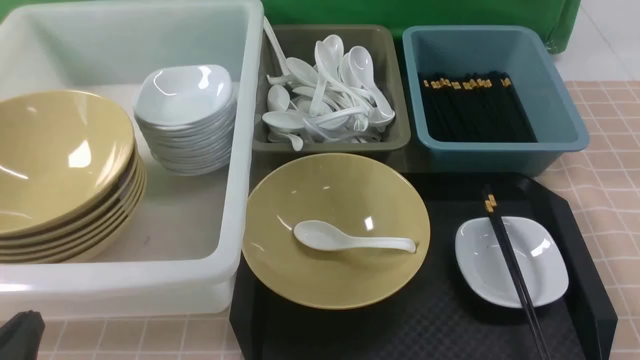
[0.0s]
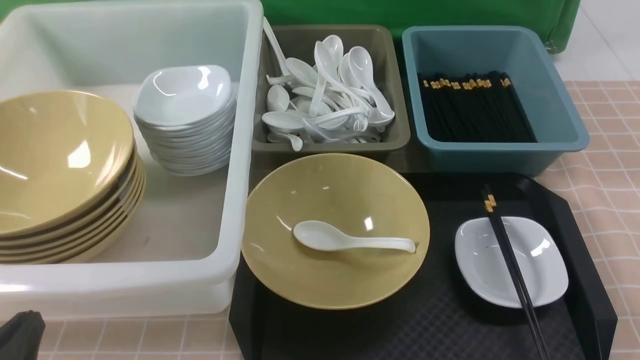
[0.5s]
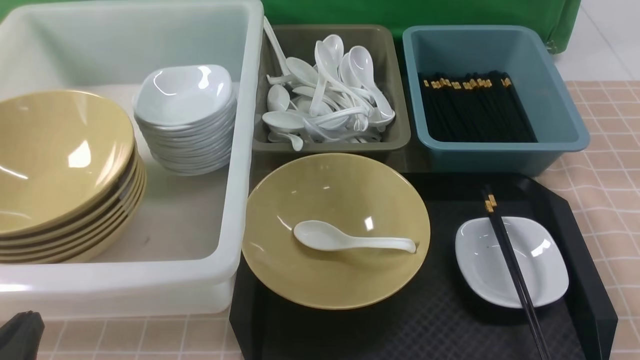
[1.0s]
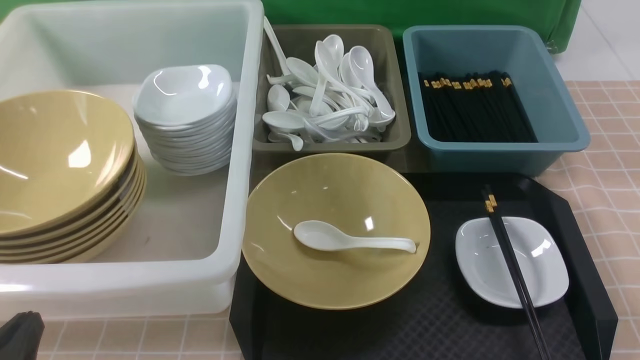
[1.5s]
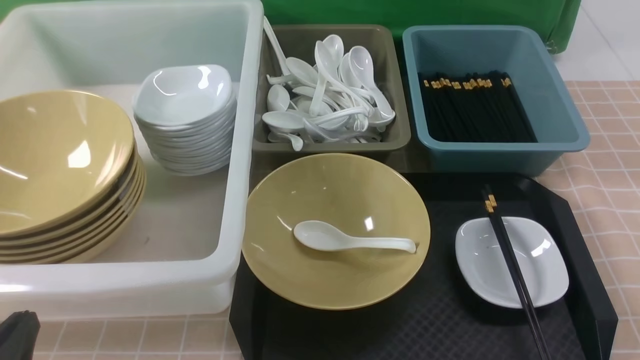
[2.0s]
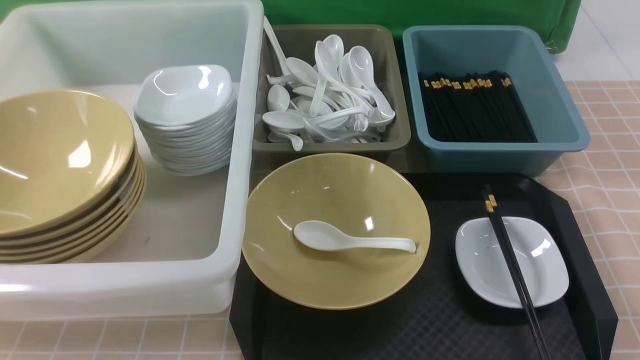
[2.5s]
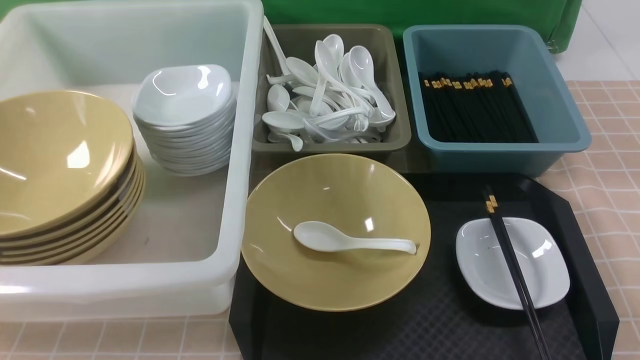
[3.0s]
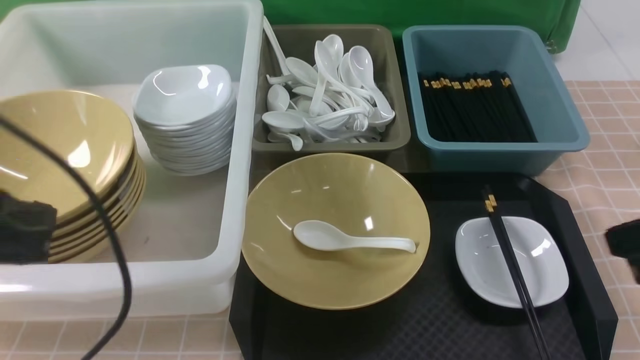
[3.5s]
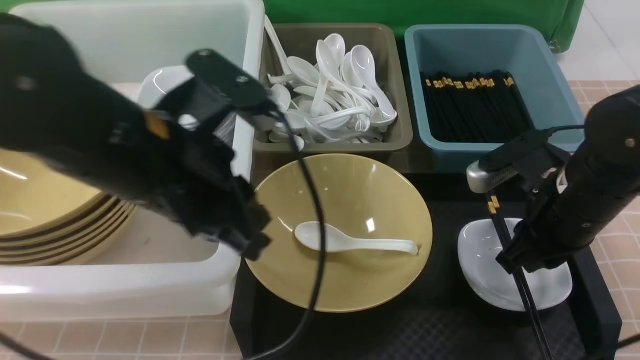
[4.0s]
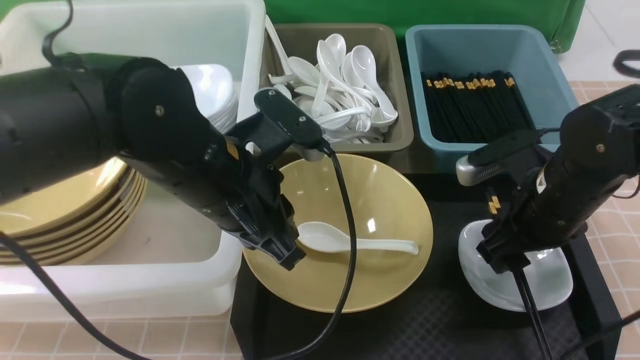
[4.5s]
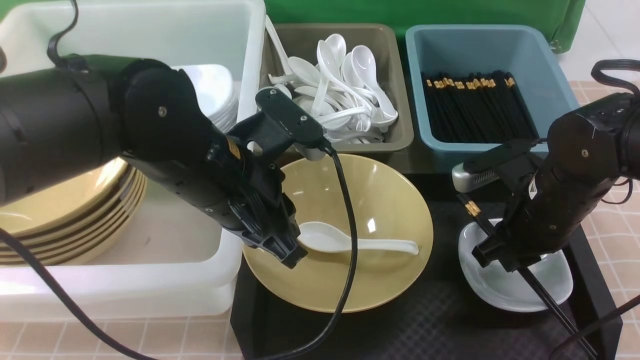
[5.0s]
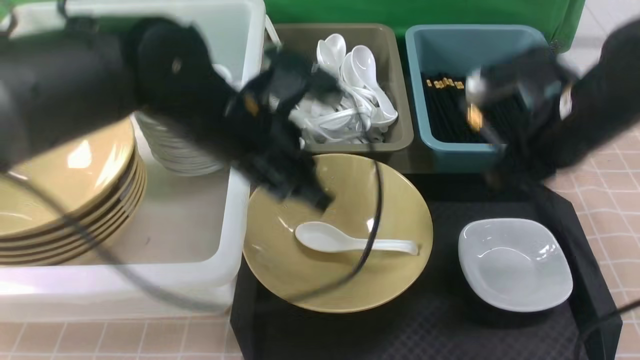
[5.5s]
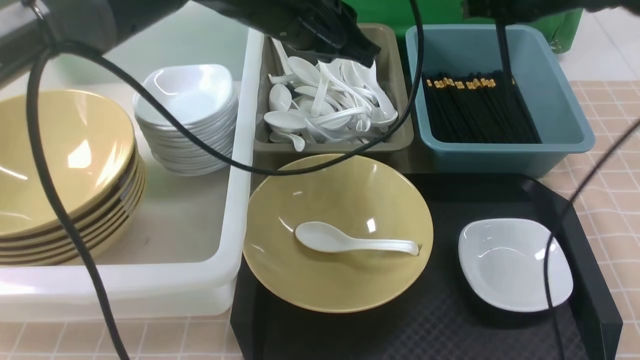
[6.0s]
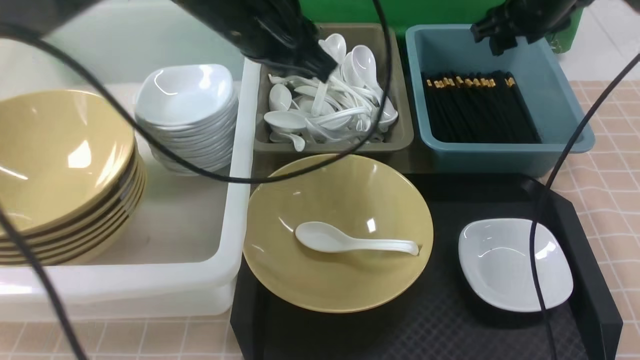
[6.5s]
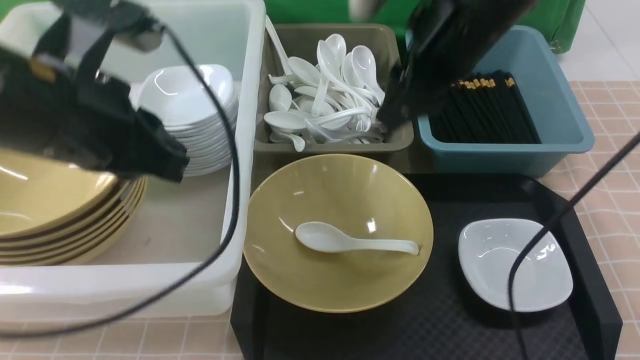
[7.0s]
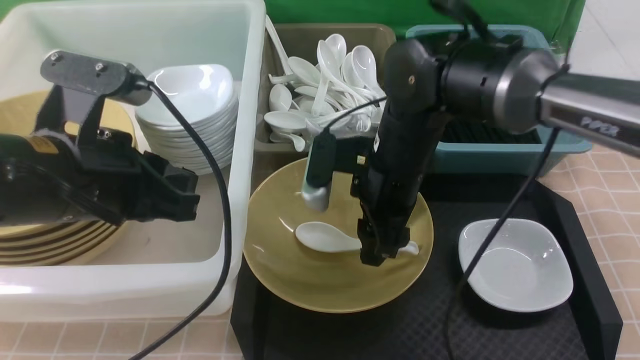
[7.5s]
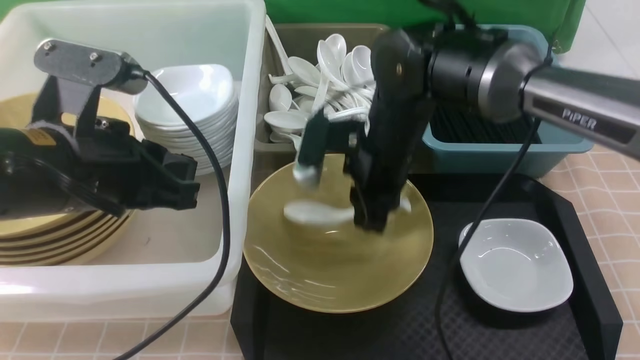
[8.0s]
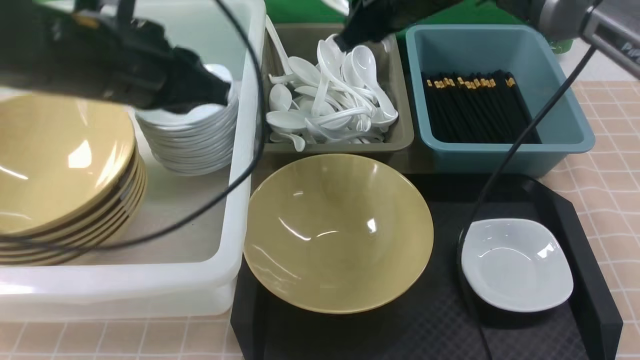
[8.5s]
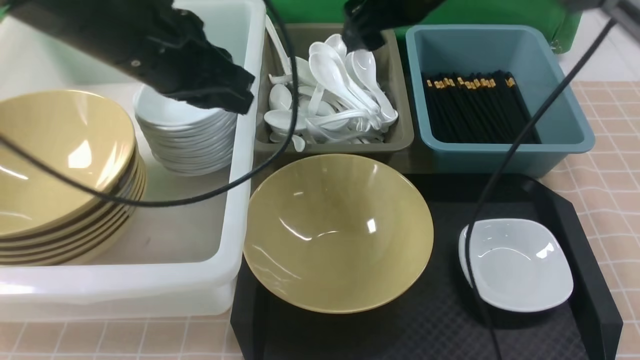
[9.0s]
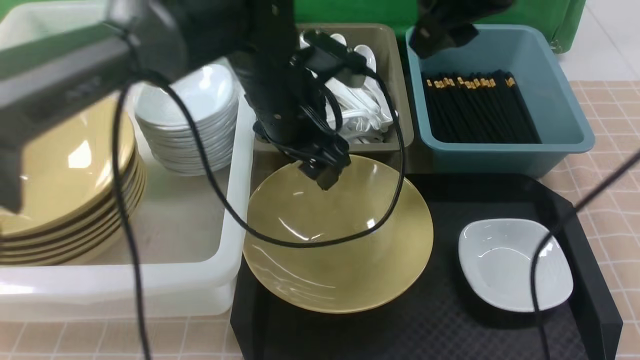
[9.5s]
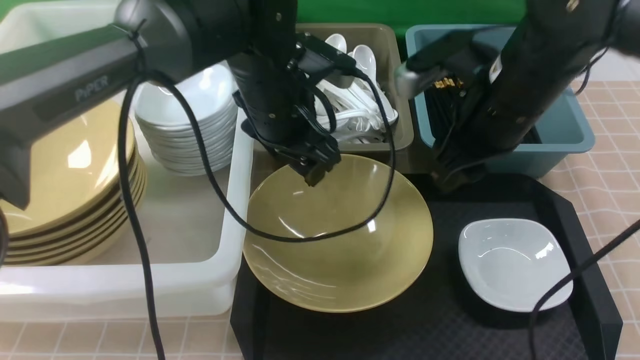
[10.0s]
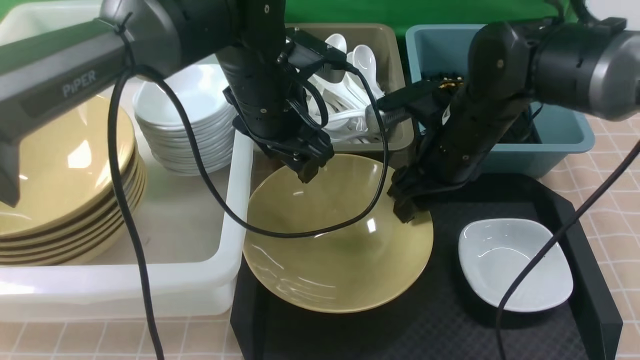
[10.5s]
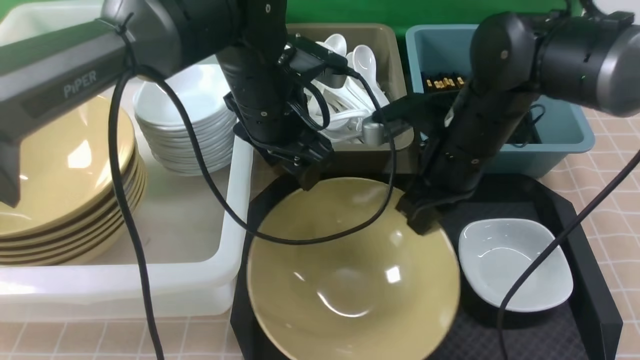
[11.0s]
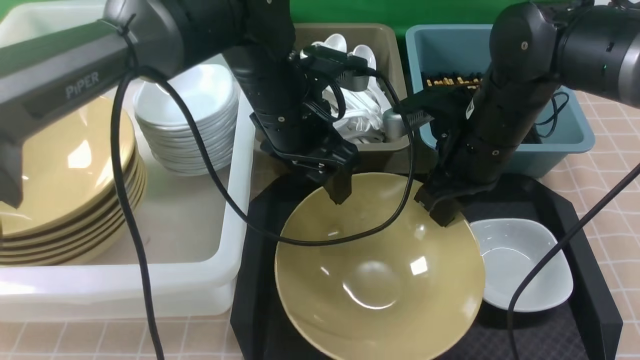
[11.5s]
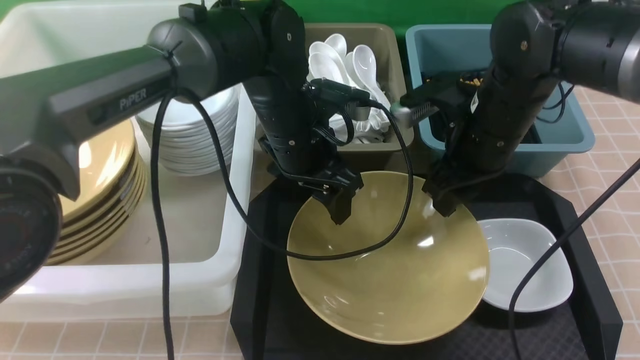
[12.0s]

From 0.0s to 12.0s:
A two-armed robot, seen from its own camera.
Task of the whole recording: on brown table put chopsticks spoon bowls plates into blue grey white boxes.
Step, from 0.0s to 5.0s: use the right arm to grab the chopsticks.
Step, from 5.5s to 6.5s: use the right arm to put the chopsticks into the small storage box on the right.
Step, from 7.0s to 7.5s: use the right arm to grab the soup spoon in the middle.
Step, from 8.0s to 8.5s: use the right arm to put the soup spoon into the small storage box in the middle.
From 2.0s to 4.0s: The right gripper moves forward and to the left, about 25 cm, and closes and opens again, while the left gripper is displaced forward, upward and to the right by about 25 cm.
From 4.0s to 6.0s: The left gripper moves forward and to the right, approximately 15 cm. The right gripper shifts approximately 20 cm forward and upward, and opens, then closes once more.
From 6.0s to 8.0s: The left gripper shifts approximately 20 cm backward and to the left; the right gripper heads to the left and backward, covering some 20 cm, and opens, then closes again.
From 8.0s to 10.0s: The left gripper goes approximately 20 cm forward and to the right, and opens; the right gripper moves to the right, roughly 10 cm, travels upward and back again, roughly 15 cm each way, and opens.
From 10.0s to 12.0s: The right gripper closes, then reopens.

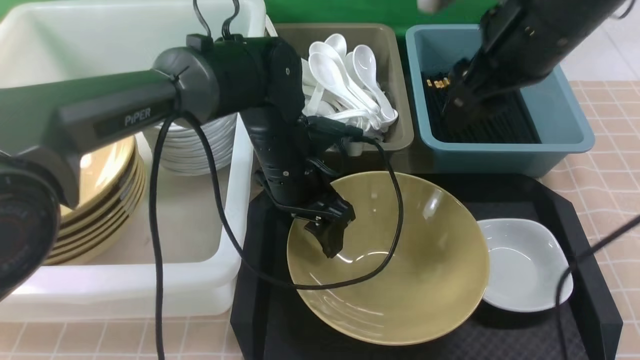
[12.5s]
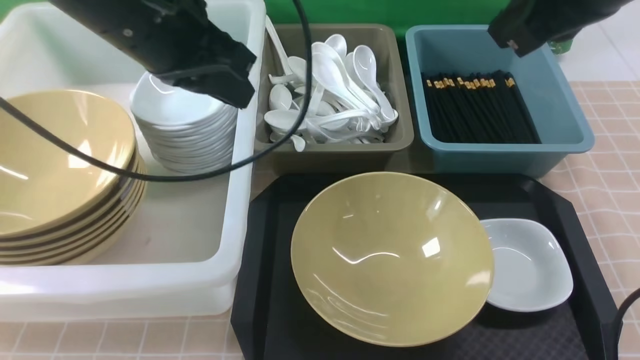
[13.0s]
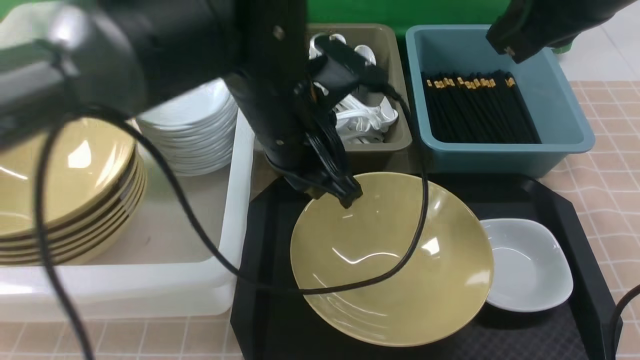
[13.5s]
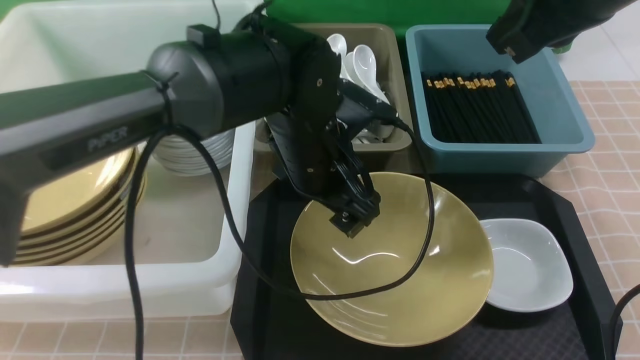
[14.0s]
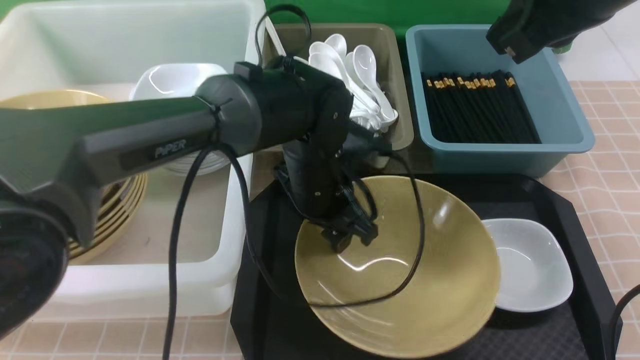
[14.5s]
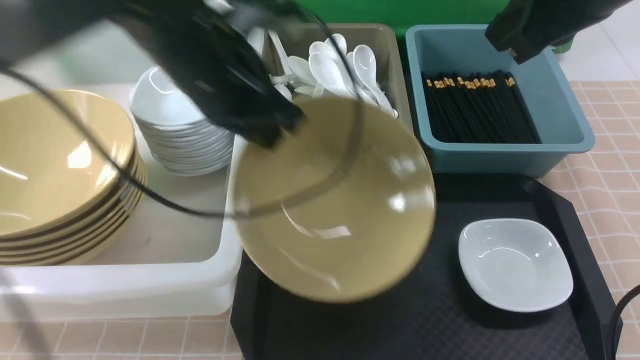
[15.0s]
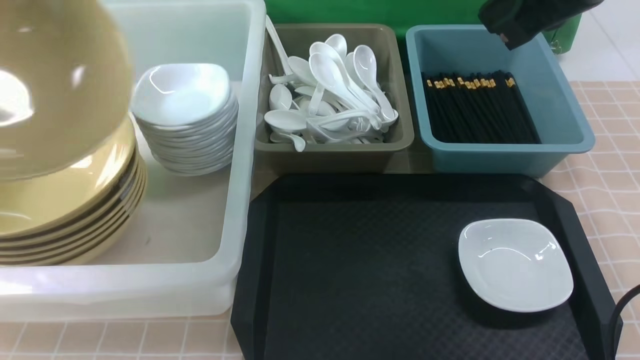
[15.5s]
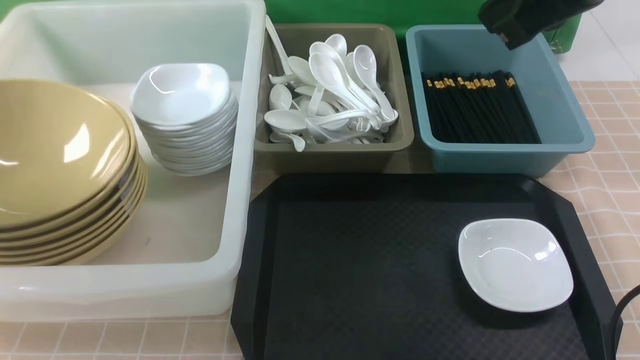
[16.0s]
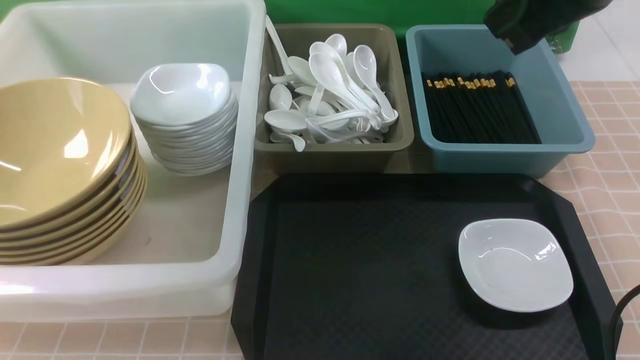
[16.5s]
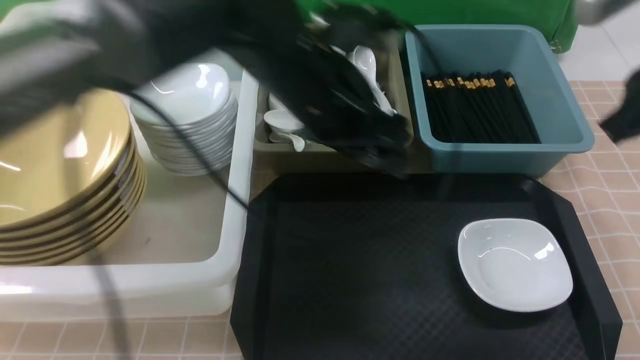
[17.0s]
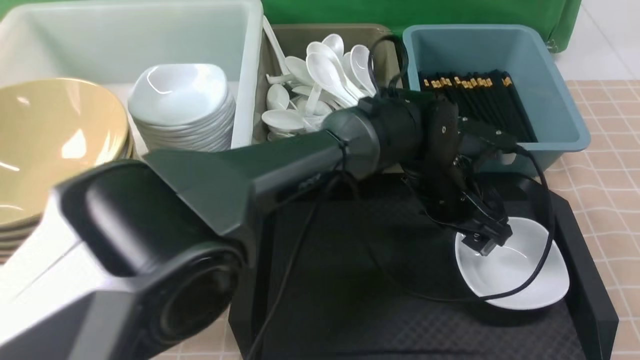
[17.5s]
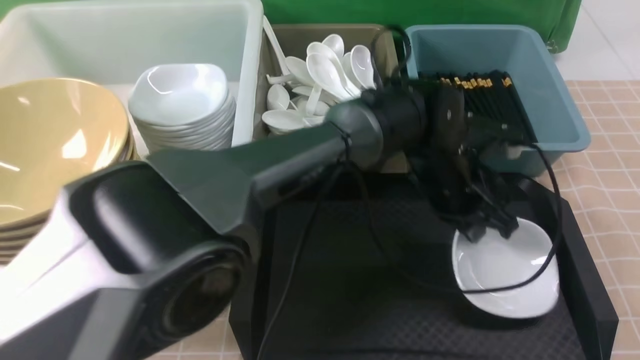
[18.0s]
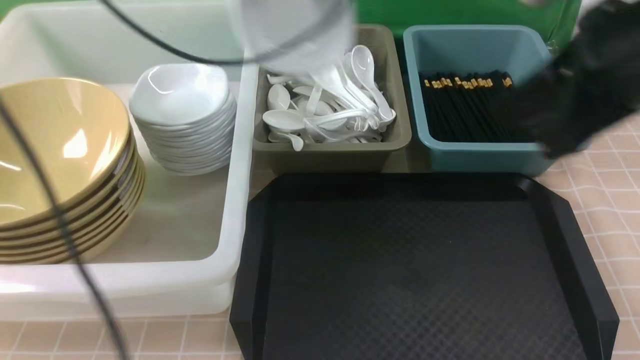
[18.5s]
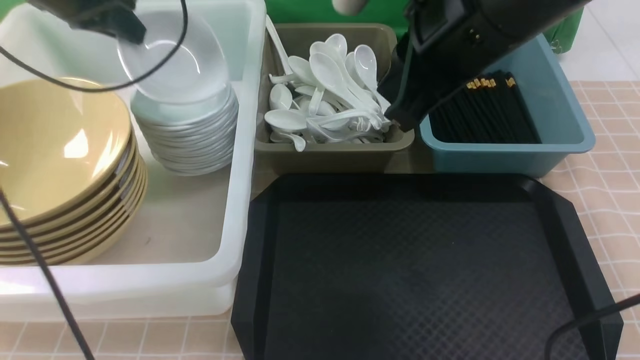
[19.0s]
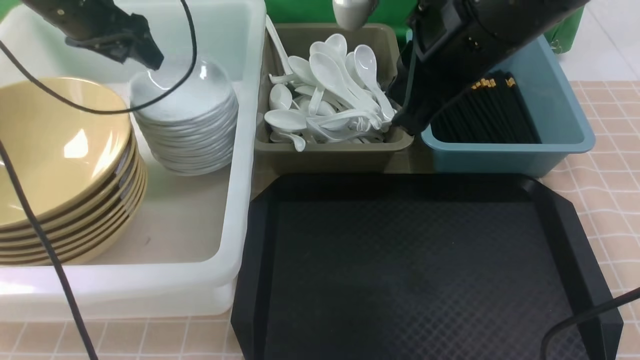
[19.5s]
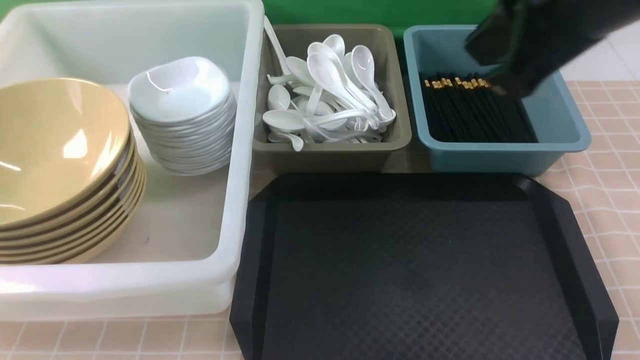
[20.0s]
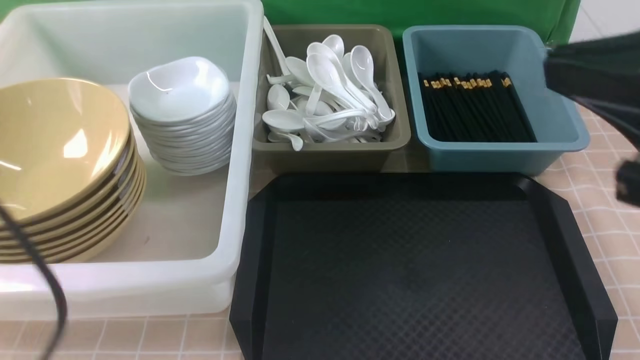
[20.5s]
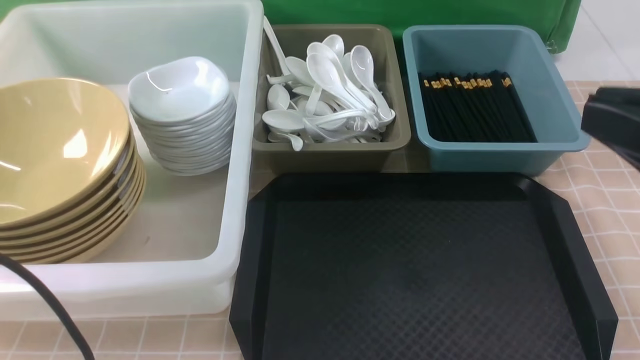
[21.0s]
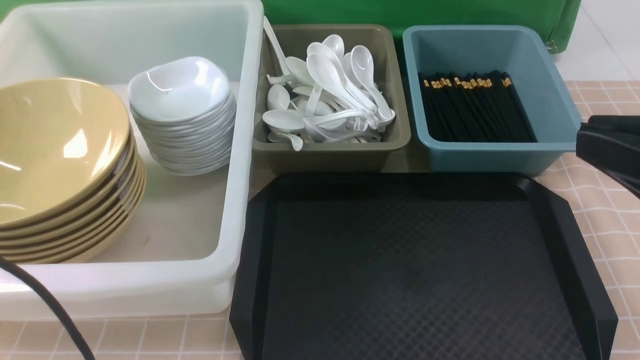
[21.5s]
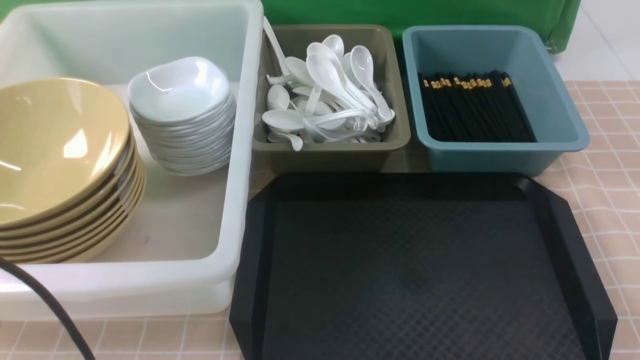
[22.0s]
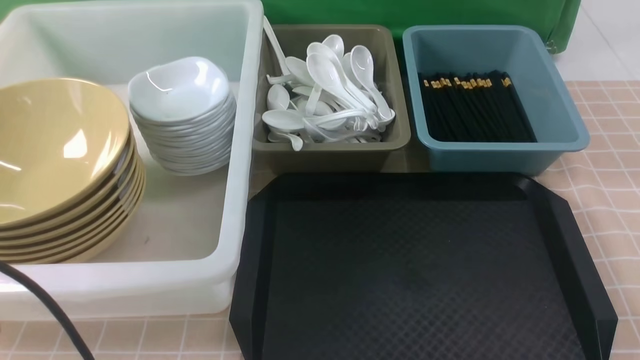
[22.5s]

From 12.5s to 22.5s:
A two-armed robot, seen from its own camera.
Task of the whole recording: on brown table put chopsticks spoon bowls plates into blue grey white boxes.
Step, from 12.5s to 14.5s: use the left arm to grab the yellow noodle bowl on the left.
Step, from 15.0s to 16.0s: use the left arm to put the noodle bowl into the large storage box on the left.
Step, from 16.5s to 17.5s: use the left arm to grab the plate.
Step, from 18.0s to 19.5s: use the left arm to put the plate into the large storage box on the left.
From 12.5s to 14.5s: The right gripper travels upward by roughly 5 cm, and closes its fingers; the left gripper reaches roughly 15 cm upward, then returns, and closes, then opens again.
From 14.5s to 16.5s: The left gripper moves to the left and upward, approximately 35 cm, and opens up.
From 16.5s to 18.5s: The right gripper goes about 5 cm backward, while the left gripper moves to the right and forward, about 20 cm, and closes.
From 18.5s to 20.5s: The right gripper travels backward by roughly 10 cm. The left gripper is displaced backward by approximately 30 cm, and opens, then closes once more.
From 20.5s to 22.5s: The right gripper goes approximately 25 cm downward and to the right. Meanwhile the left gripper heads downward, covering some 5 cm.
